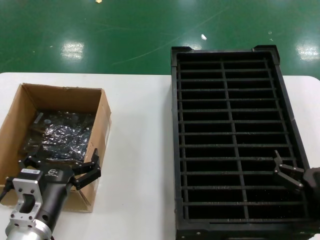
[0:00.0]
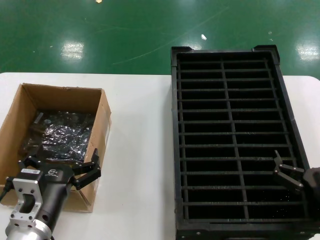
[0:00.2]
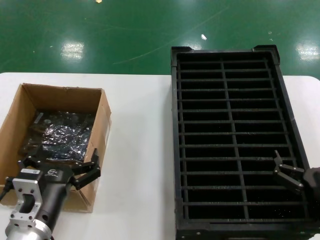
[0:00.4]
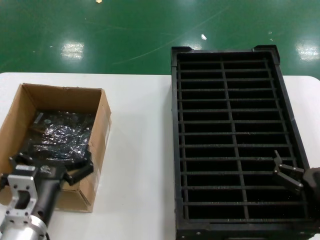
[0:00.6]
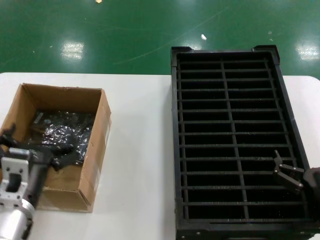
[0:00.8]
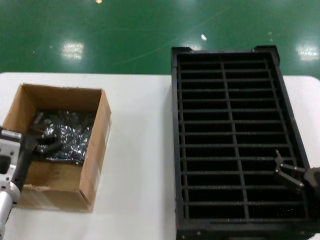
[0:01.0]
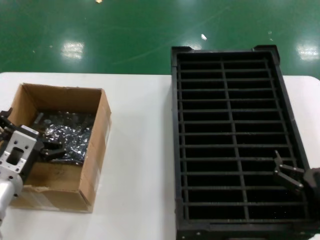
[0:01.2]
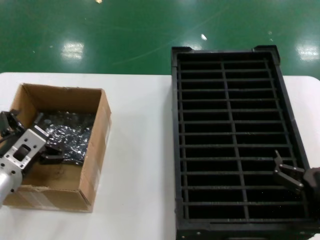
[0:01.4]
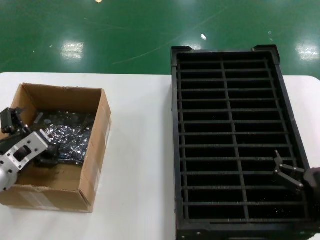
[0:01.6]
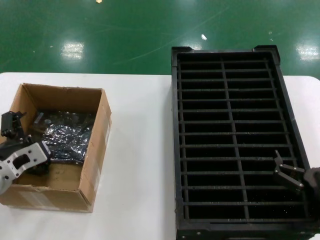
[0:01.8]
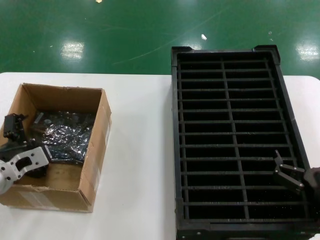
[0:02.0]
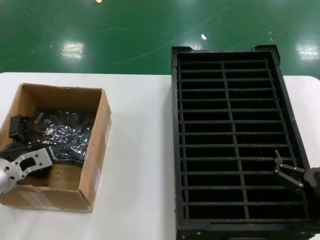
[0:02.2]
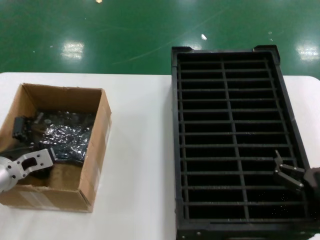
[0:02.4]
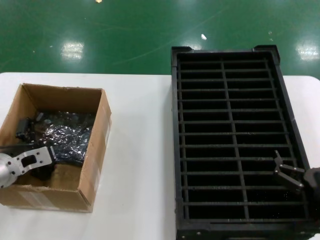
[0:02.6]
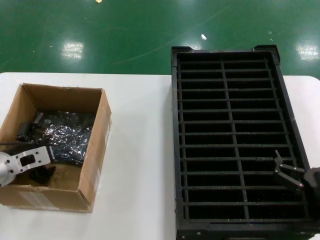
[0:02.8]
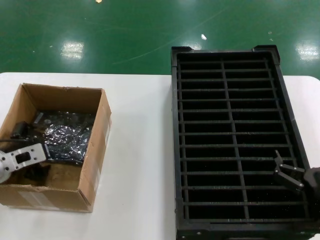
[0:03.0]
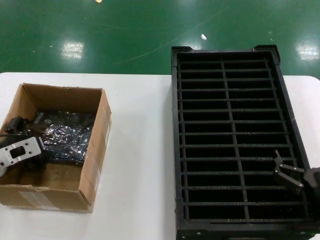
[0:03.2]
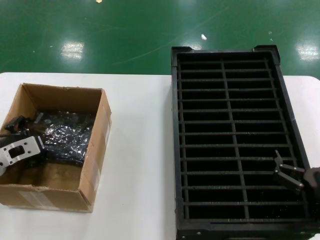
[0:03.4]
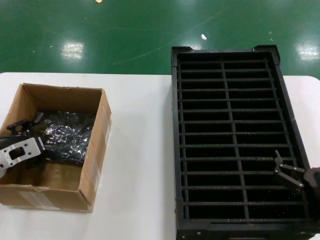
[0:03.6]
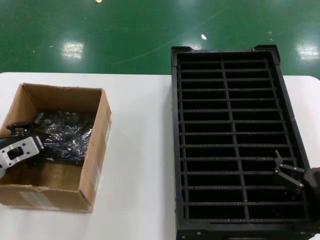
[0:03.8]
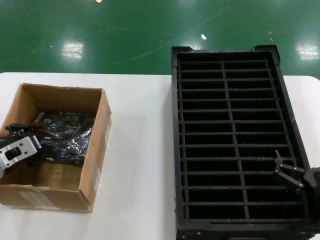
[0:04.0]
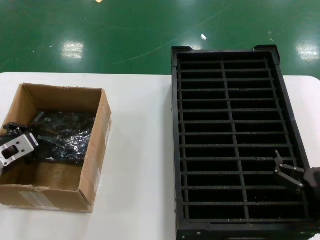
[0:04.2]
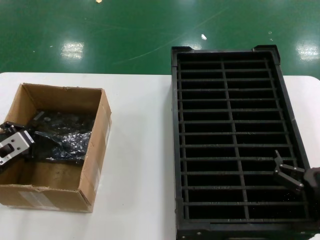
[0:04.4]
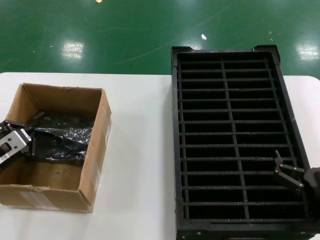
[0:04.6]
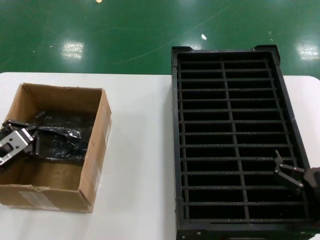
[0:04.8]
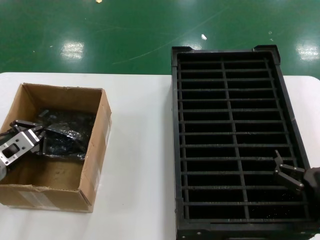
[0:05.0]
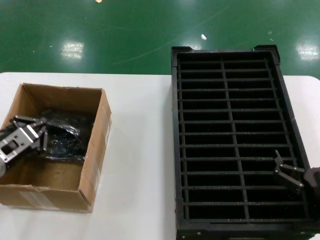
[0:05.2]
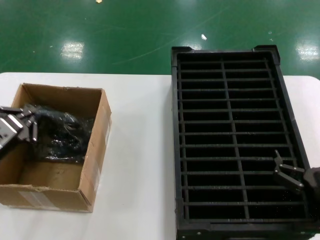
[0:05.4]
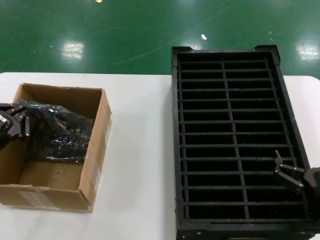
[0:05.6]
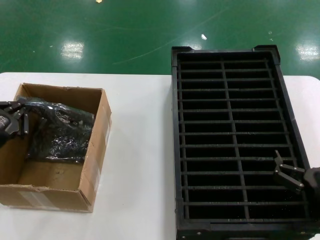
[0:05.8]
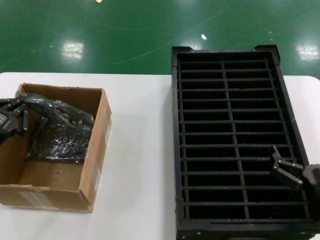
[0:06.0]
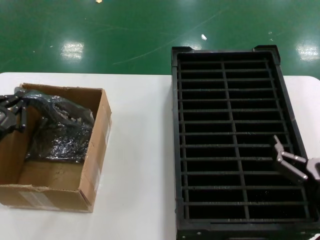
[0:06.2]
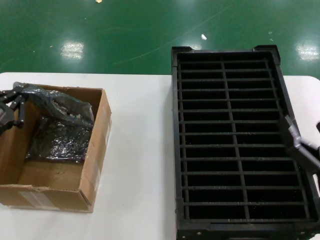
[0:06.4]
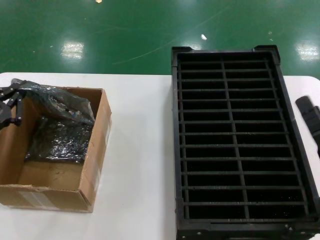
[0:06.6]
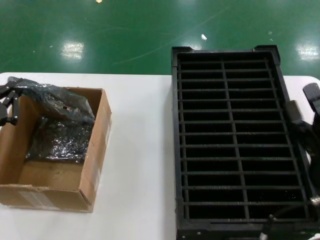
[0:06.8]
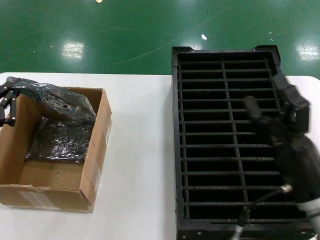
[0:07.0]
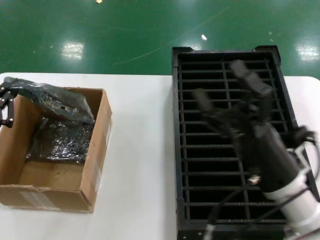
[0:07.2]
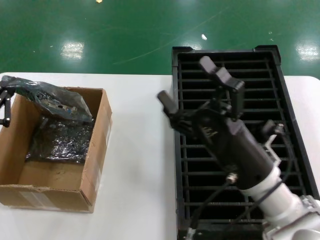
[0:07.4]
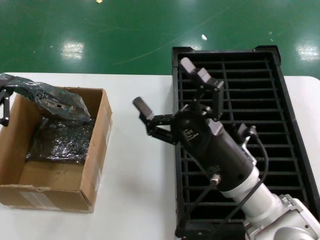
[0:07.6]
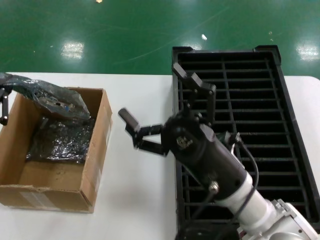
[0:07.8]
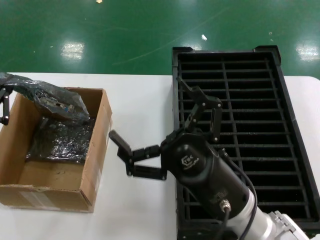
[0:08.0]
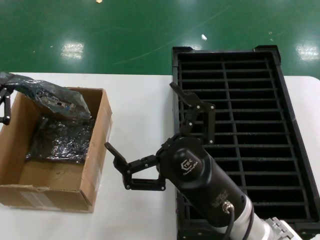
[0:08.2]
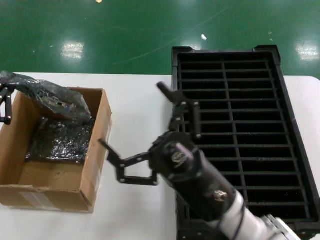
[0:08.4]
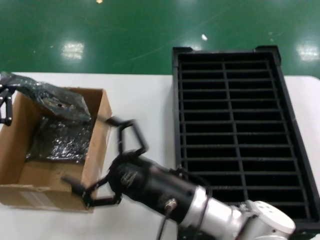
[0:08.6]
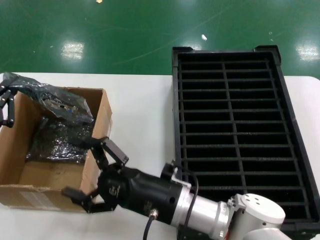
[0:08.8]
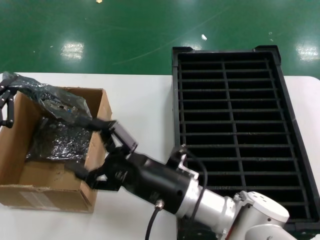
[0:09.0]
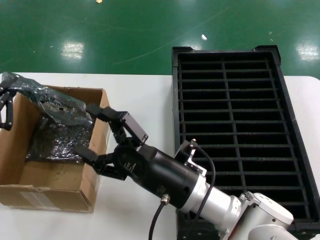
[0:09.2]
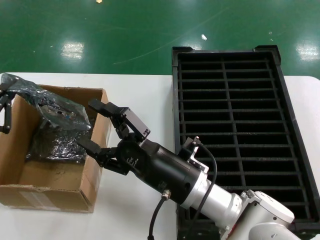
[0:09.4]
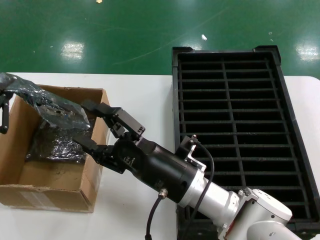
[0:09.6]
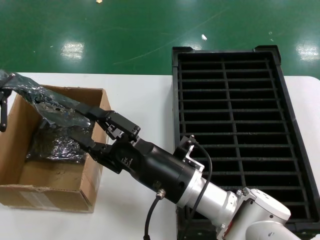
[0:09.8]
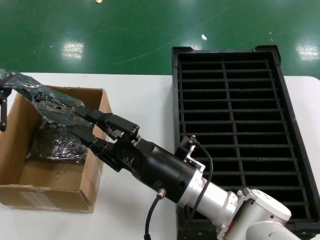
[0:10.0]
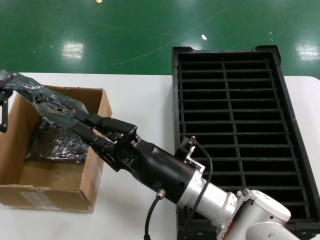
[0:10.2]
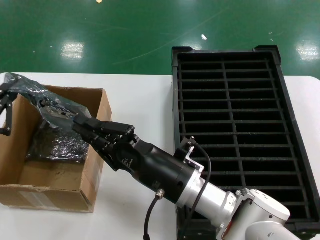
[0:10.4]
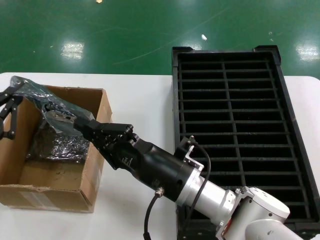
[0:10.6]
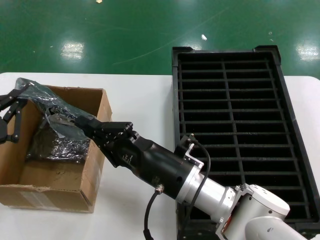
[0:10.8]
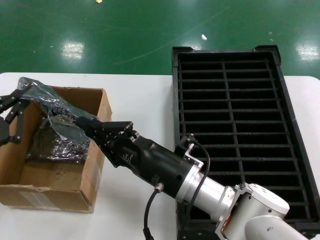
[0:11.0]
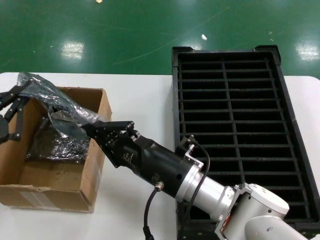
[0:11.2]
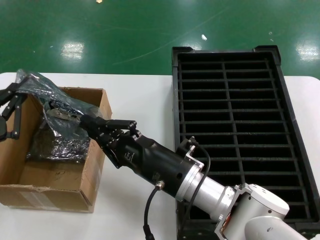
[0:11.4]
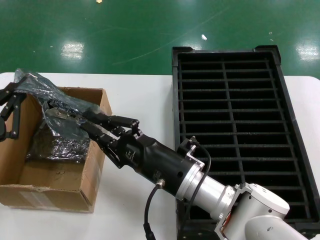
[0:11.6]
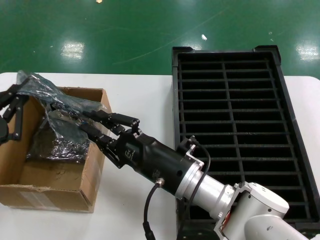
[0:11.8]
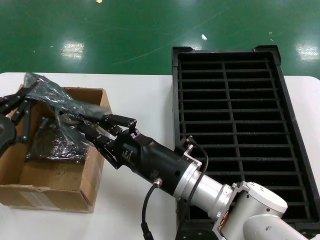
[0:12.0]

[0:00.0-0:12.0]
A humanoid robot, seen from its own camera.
Task of the whole recording: take out graphics card from box remove packaging put into black container.
Step, 0:00.0 to 0:04.0: Grasp the bag.
Step, 0:04.4 to 0:07.0: Lift the bag.
0:00.0 to 0:01.6: The left hand is displaced forward, to the left and upward by about 15 cm.
0:01.6 to 0:03.0: The left hand heads forward and to the left, covering some 10 cm.
0:03.0 to 0:04.4: The hands move only a little.
0:04.4 to 0:06.0: The left hand is displaced backward by about 5 cm.
0:06.0 to 0:07.6: The right hand is displaced to the left and forward by roughly 20 cm.
0:07.6 to 0:09.0: The right hand travels to the left by about 10 cm.
0:09.0 to 0:12.0: The hands move only a little.

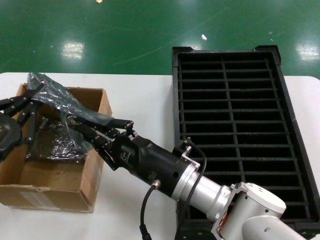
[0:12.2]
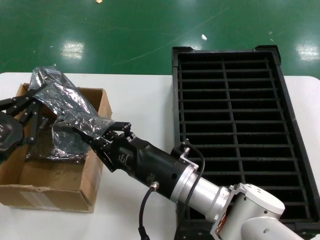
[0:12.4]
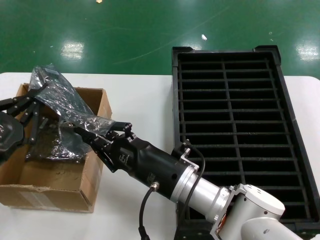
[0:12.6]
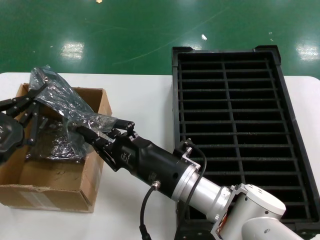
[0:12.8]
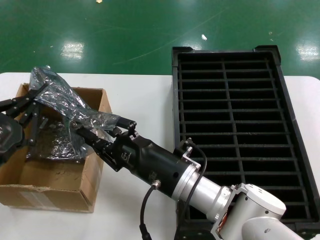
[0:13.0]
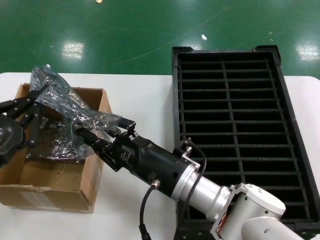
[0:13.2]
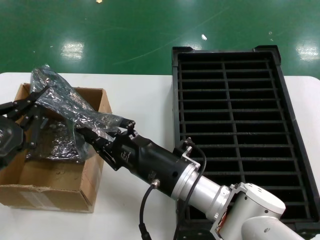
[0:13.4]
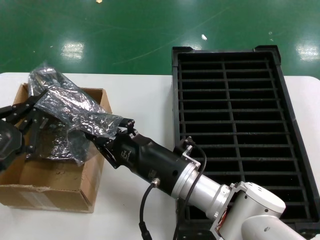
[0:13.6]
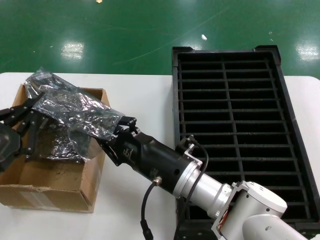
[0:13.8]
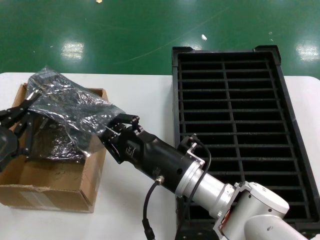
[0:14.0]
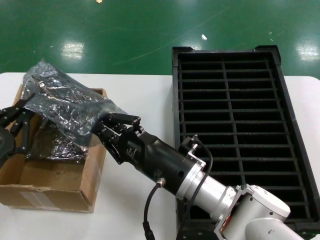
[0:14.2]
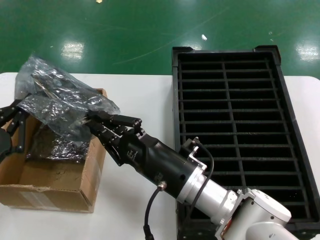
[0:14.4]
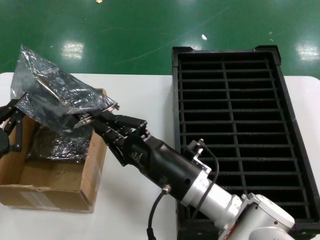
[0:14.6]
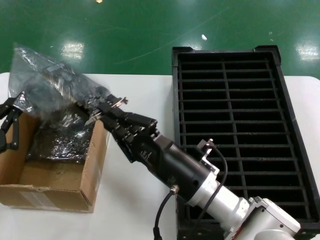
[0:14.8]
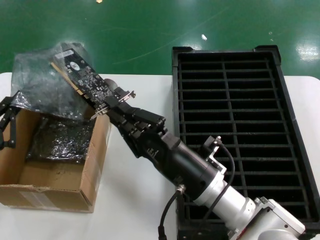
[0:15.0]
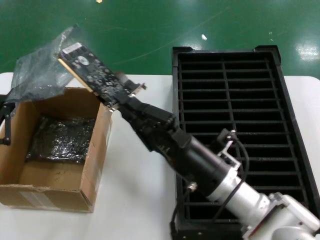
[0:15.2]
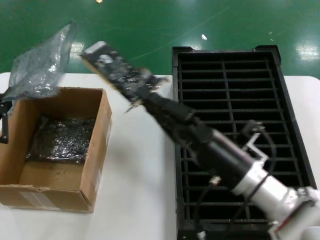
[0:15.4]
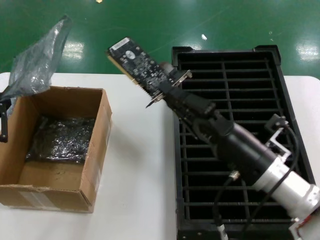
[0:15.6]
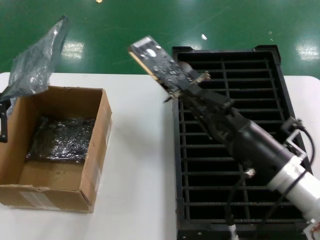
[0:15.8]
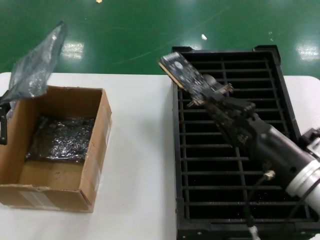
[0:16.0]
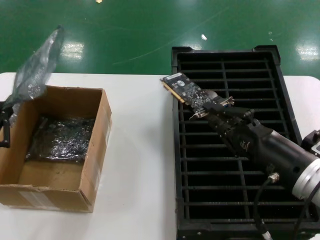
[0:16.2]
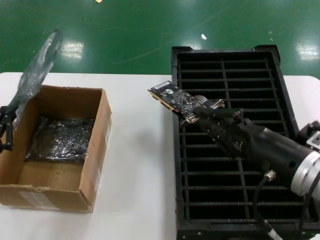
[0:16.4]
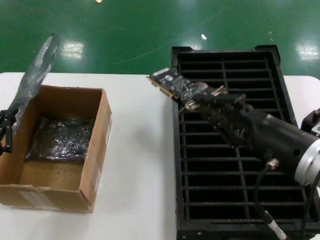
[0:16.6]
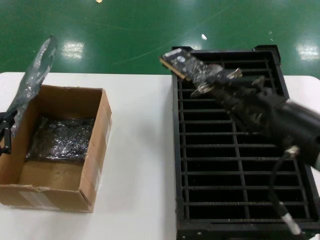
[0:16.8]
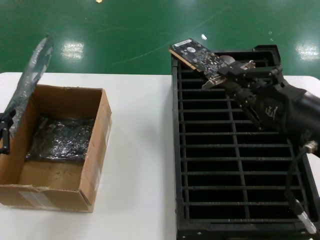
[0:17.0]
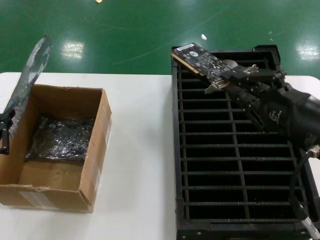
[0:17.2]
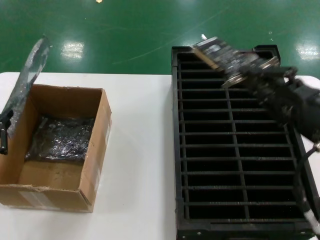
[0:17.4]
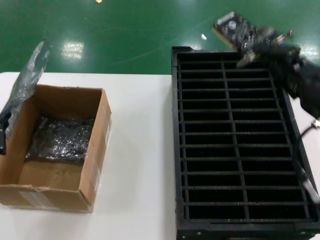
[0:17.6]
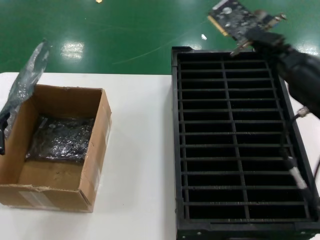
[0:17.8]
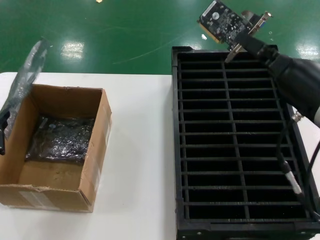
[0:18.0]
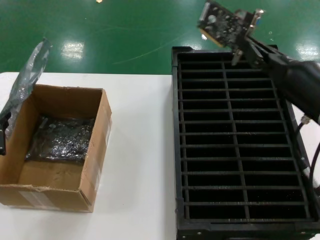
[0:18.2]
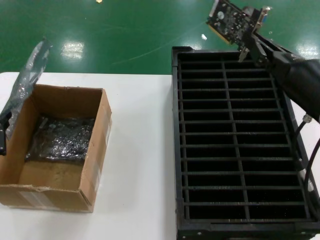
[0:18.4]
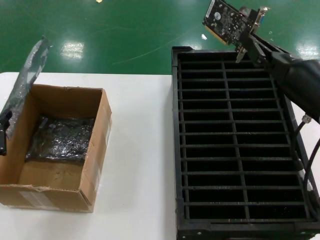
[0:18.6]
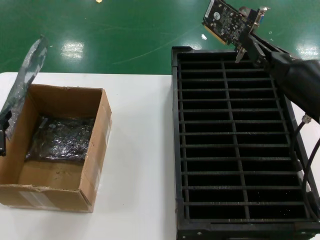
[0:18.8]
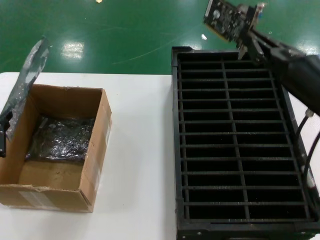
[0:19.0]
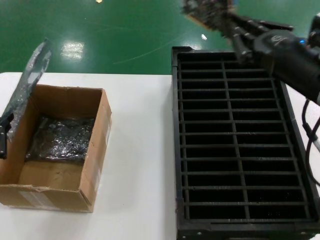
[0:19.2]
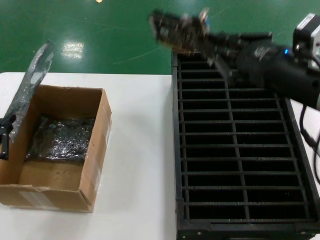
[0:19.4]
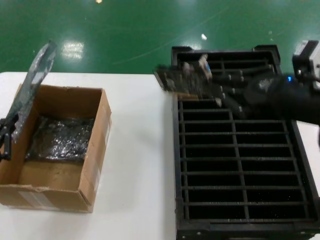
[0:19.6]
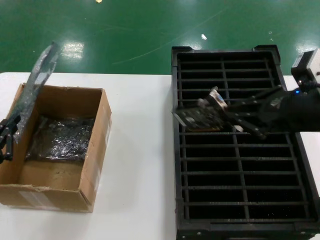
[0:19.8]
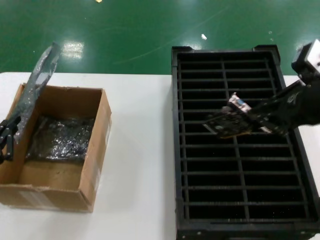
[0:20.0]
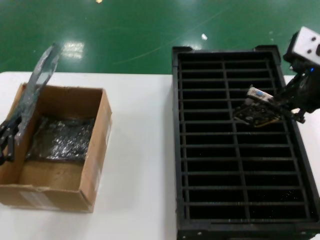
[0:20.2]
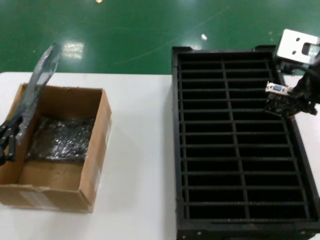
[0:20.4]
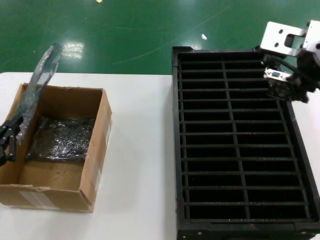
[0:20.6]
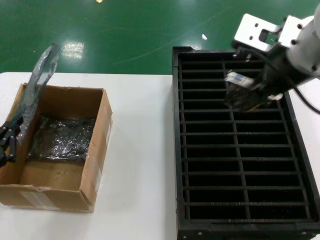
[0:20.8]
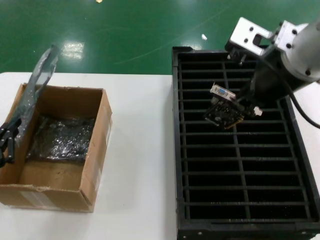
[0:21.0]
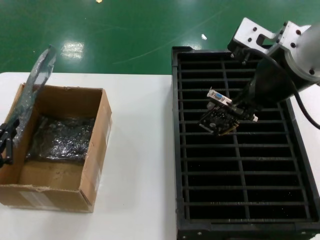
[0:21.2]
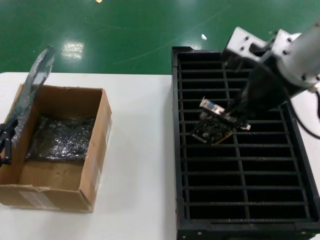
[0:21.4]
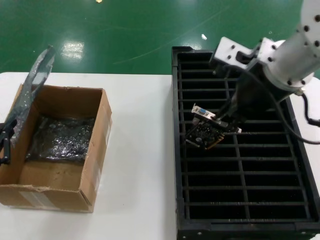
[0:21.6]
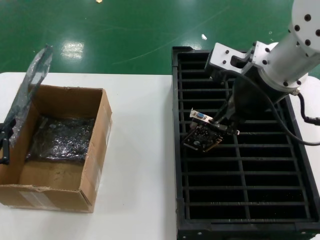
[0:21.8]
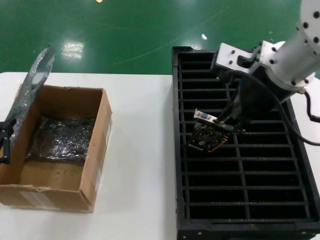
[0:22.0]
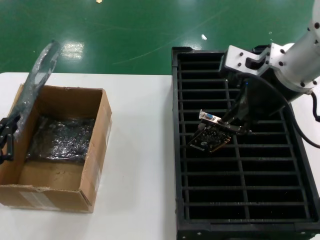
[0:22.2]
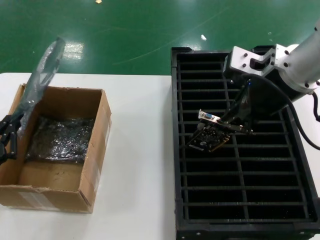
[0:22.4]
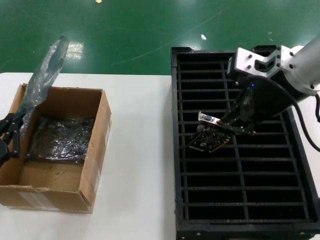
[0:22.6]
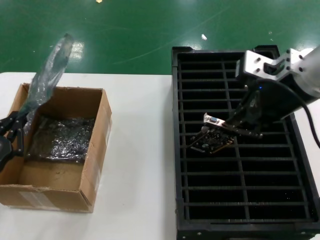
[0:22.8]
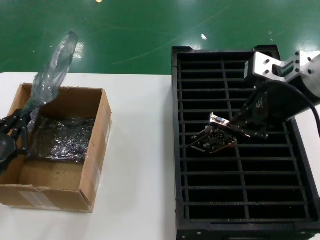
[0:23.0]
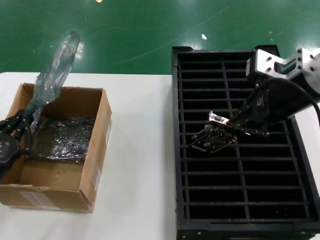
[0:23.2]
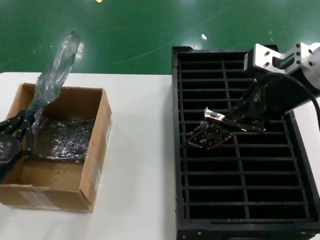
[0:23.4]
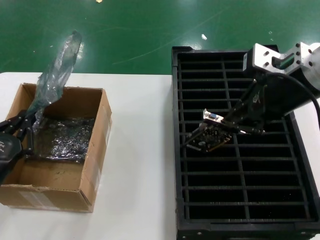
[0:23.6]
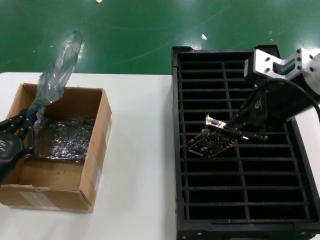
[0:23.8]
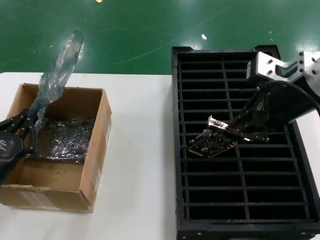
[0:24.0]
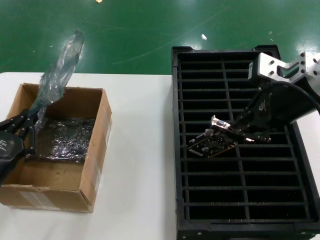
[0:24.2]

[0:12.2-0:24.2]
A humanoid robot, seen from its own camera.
Task of the whole recording: take out graphics card from box remove packaging put into black container.
Step, 0:12.2 to 0:15.4: Take out the hard disk of the bag.
0:12.2 to 0:13.8: The hands make only small movements.
0:13.8 to 0:15.2: The right hand heads to the right, covering about 5 cm.
0:15.2 to 0:16.6: The right hand shifts about 20 cm upward, to the right and backward, while the left hand goes approximately 5 cm downward.
0:16.6 to 0:18.2: The right hand moves upward, about 5 cm.
0:18.2 to 0:19.8: The right hand shifts roughly 5 cm upward.
0:19.8 to 0:21.2: The right hand is displaced to the left and upward by about 15 cm.
0:21.2 to 0:22.6: The right hand ends up roughly 5 cm from where it was.
0:22.6 to 0:24.2: The hands stay close to where they were, moving slightly.
